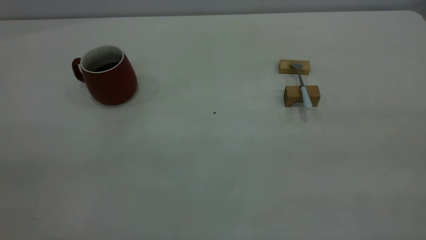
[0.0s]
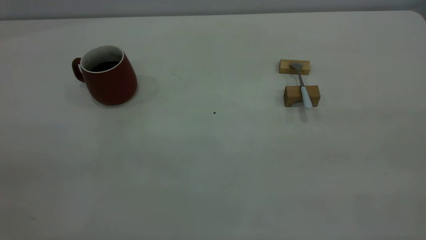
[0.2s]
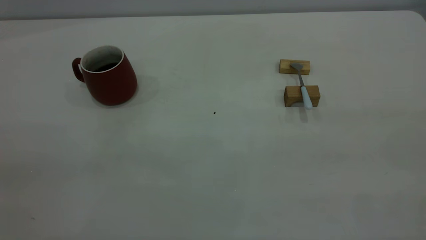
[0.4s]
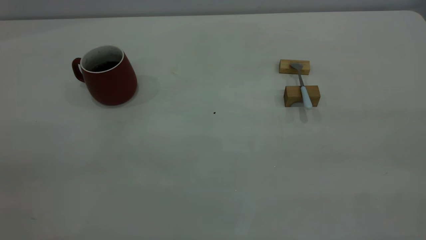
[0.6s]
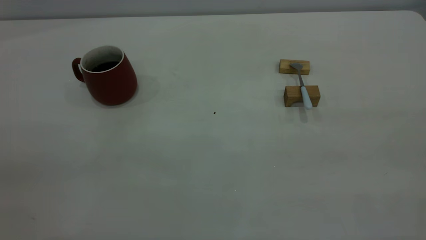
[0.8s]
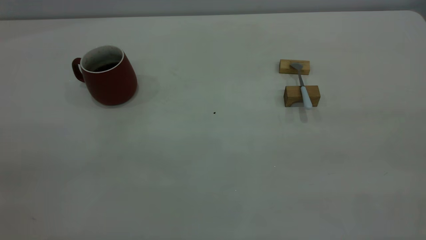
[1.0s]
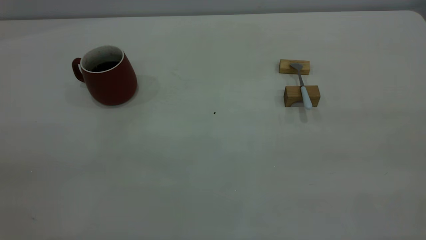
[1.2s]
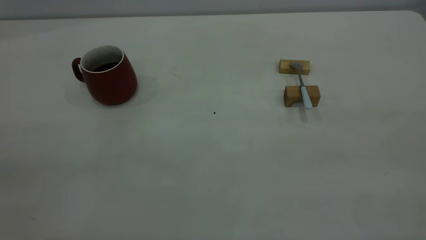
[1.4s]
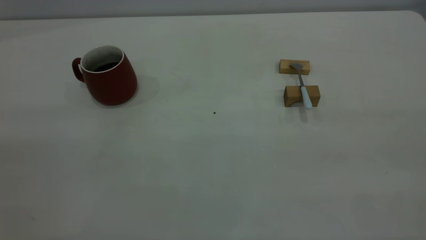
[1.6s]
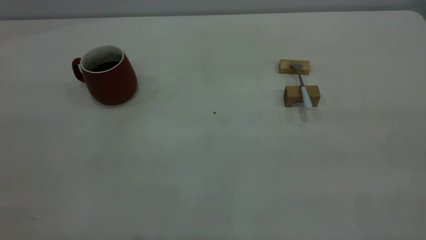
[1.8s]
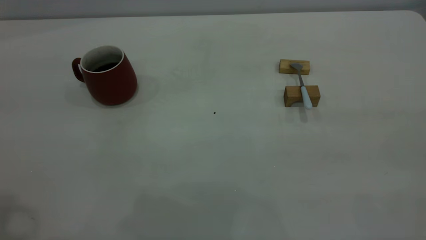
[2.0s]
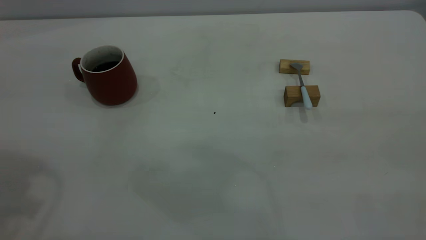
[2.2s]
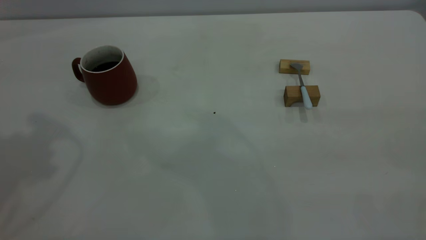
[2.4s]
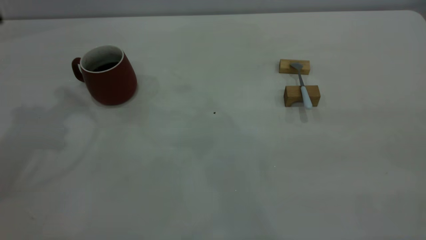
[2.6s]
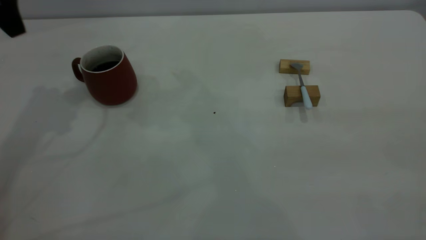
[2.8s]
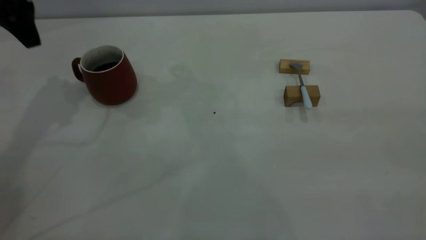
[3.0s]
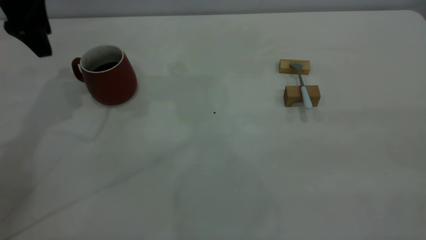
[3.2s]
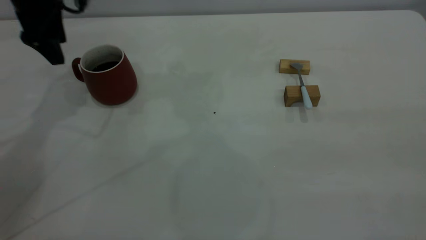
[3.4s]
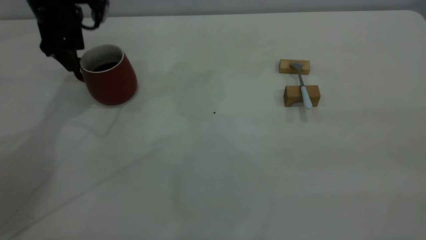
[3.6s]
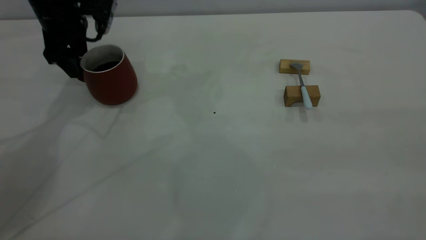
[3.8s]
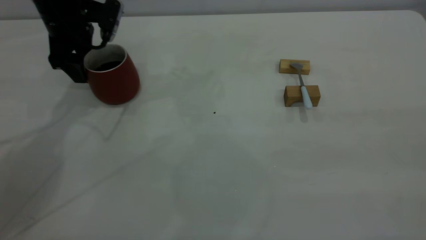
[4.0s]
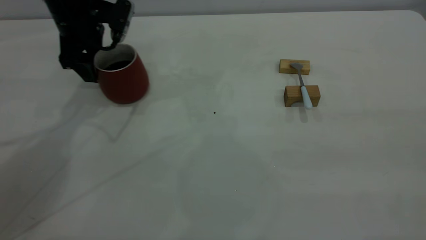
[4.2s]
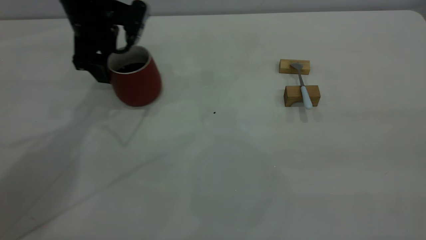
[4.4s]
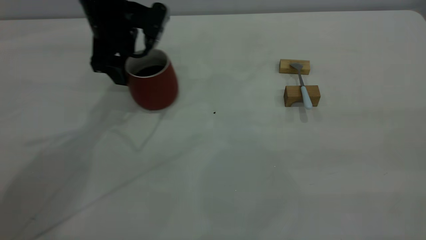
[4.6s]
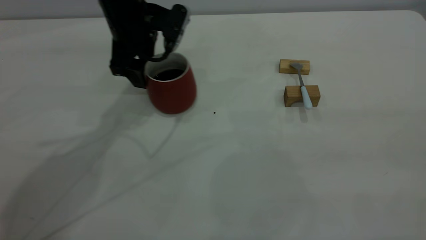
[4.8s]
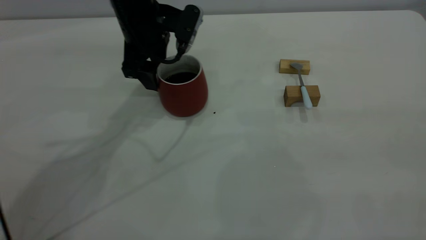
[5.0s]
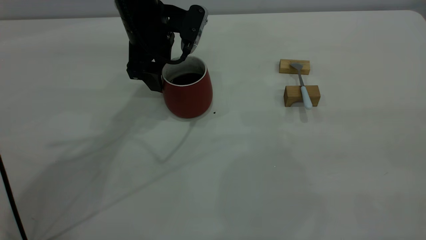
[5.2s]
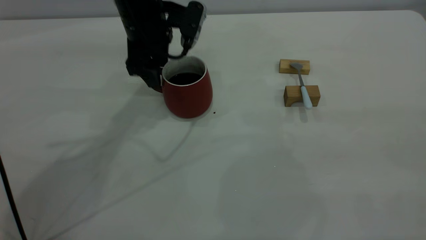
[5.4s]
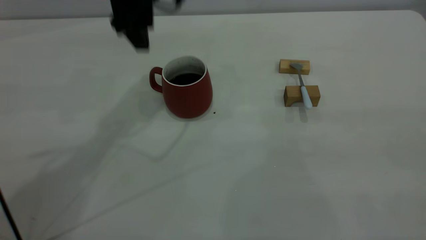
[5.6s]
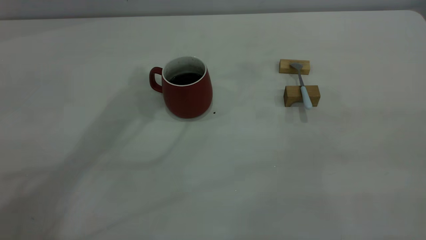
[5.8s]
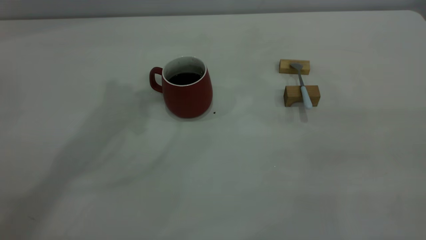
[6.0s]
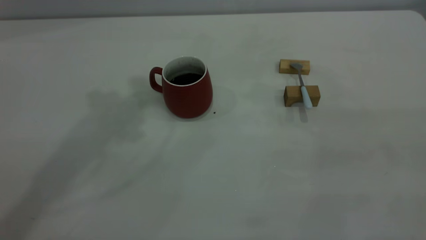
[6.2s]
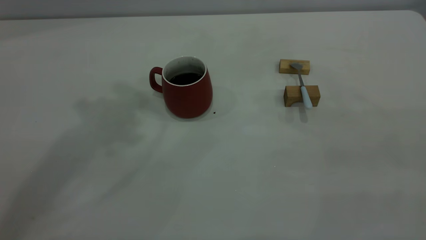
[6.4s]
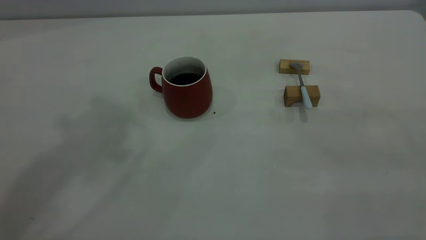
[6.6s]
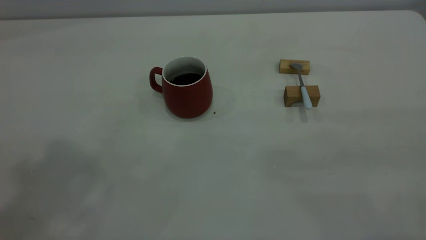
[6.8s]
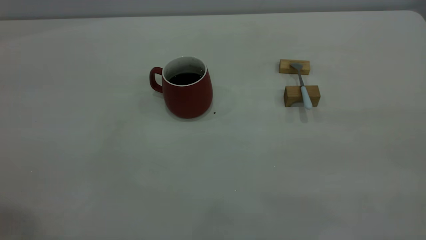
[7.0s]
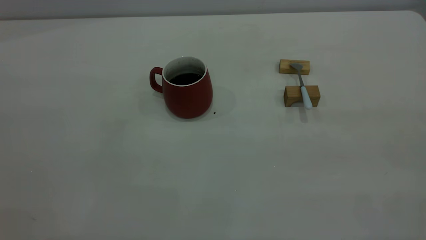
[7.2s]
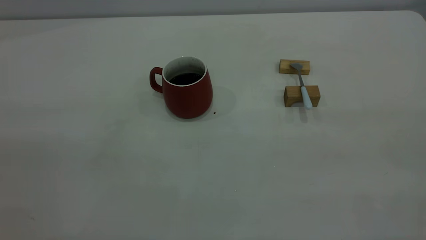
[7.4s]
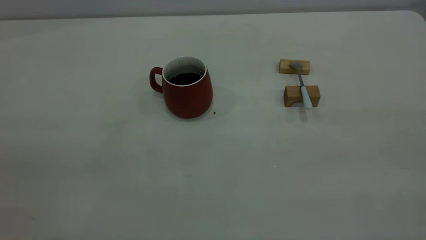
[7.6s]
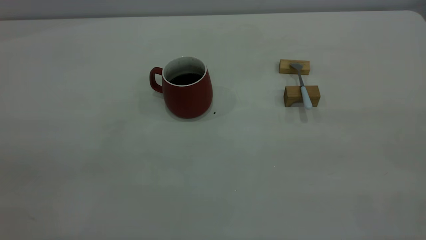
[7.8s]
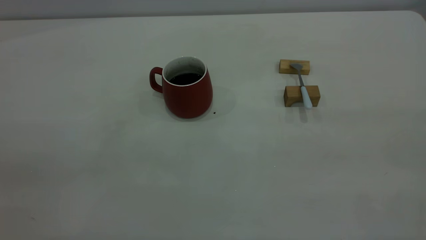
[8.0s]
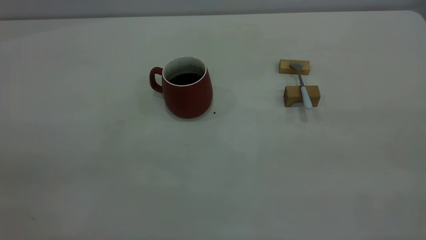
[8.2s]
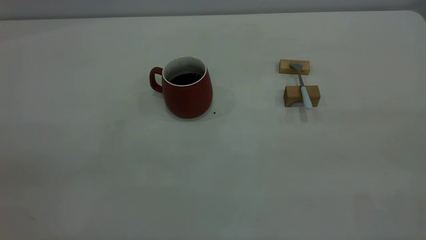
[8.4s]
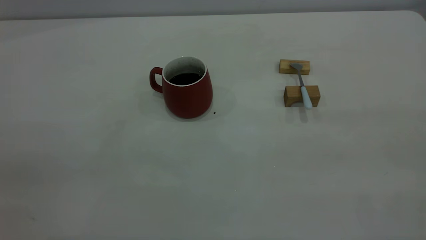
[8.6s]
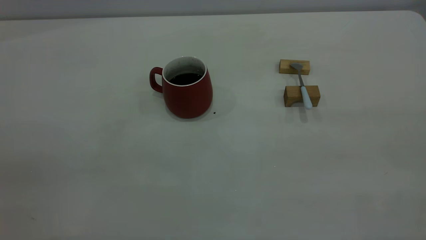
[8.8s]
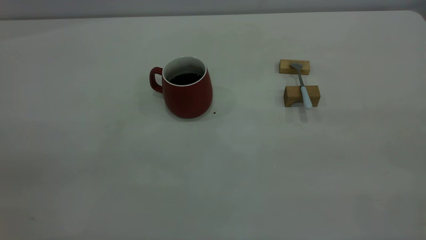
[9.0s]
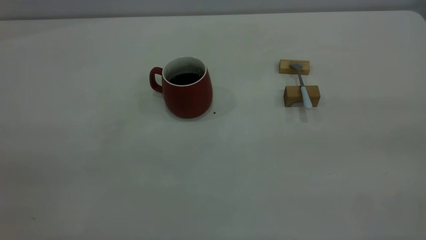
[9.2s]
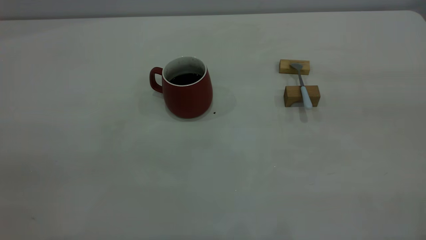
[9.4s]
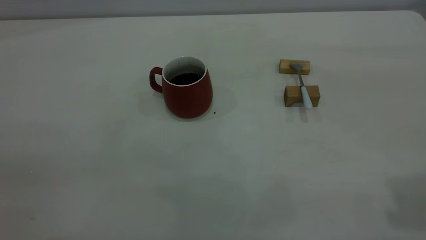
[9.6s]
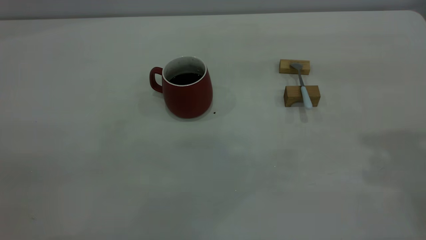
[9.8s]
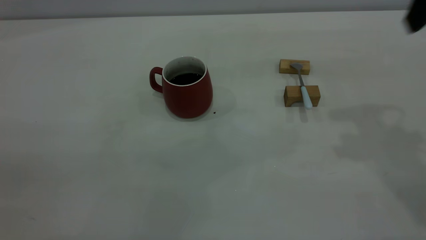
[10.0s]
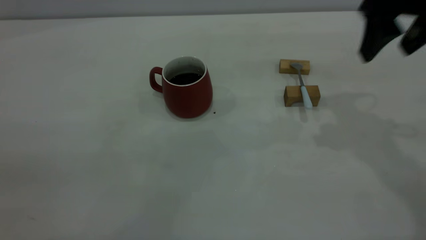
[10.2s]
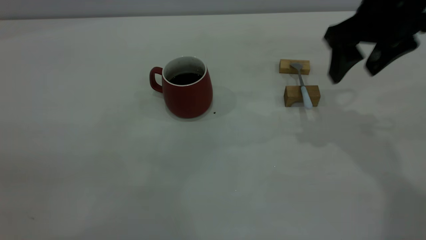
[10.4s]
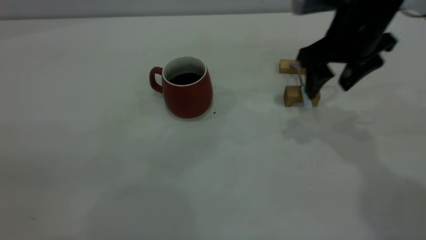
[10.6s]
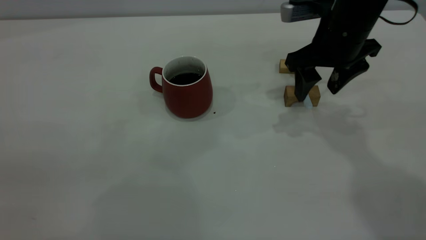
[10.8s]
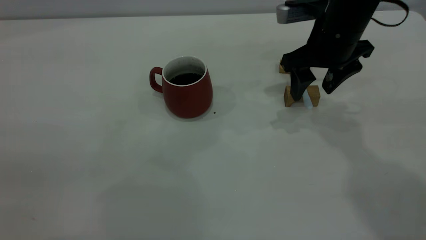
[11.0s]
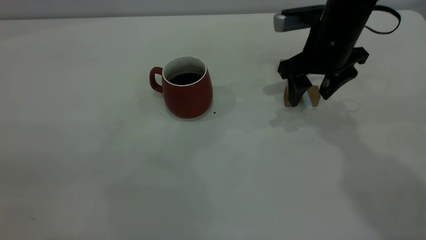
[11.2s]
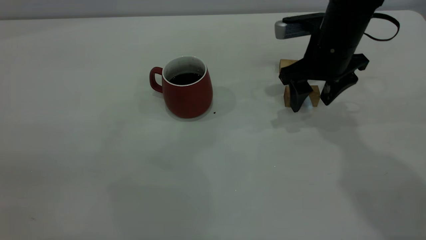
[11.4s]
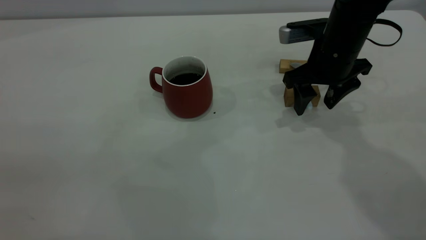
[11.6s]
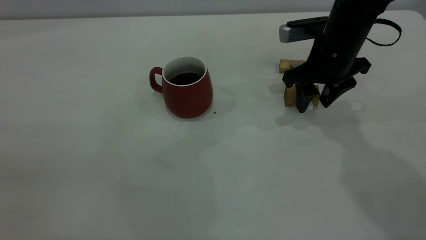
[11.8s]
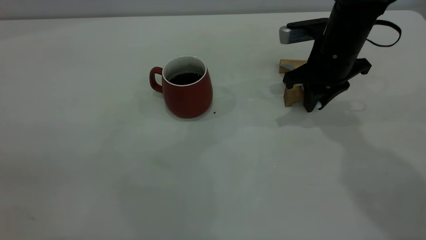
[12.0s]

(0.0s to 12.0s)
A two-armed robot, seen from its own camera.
Step, 0.0s - 5.4s: Move the cup with coffee to the center of view.
1.6s - 3.0s: The left gripper travels forward by approximately 40 cm, and opens.
3.0s - 4.4s: The left gripper shifts some 15 cm to the right and downward.
4.4s - 6.0s: The left gripper shifts about 25 cm upward.
7.6s - 9.0s: Both grippers stay put.
9.0s - 10.4s: The right gripper shifts about 40 cm forward and downward, and opens.
10.4s - 12.0s: The right gripper is displaced downward by some 10 cm, and closes its fingers.

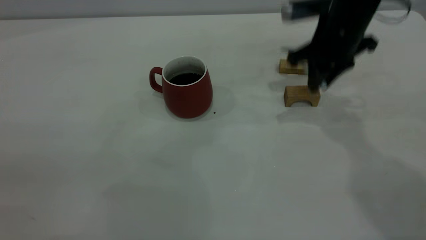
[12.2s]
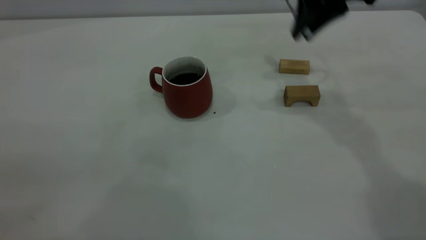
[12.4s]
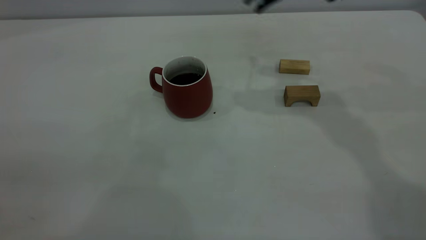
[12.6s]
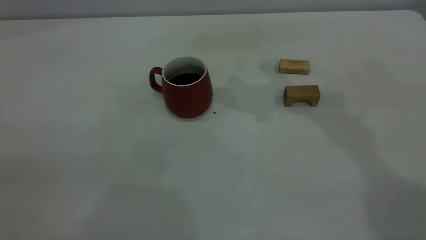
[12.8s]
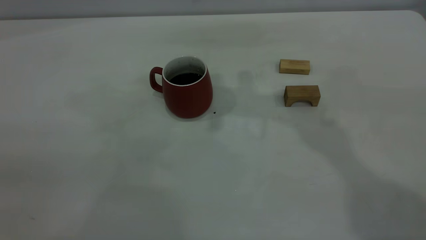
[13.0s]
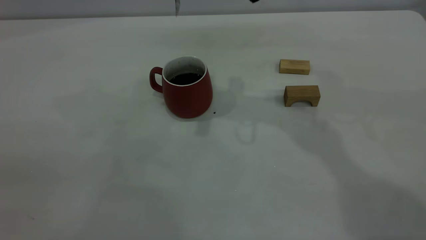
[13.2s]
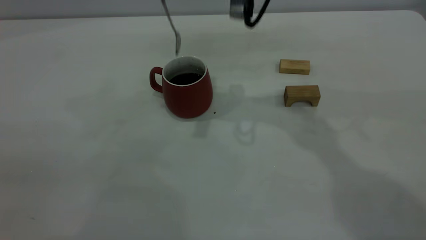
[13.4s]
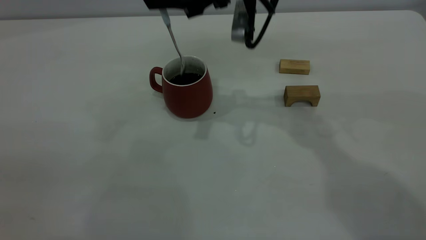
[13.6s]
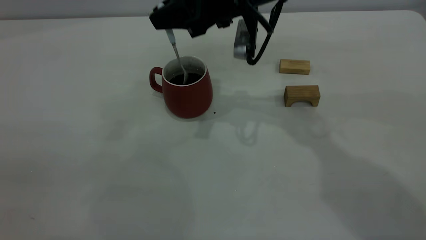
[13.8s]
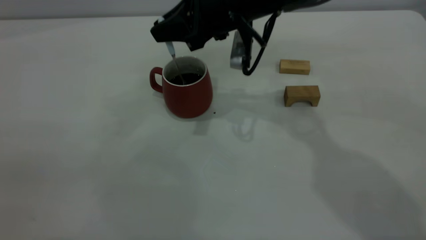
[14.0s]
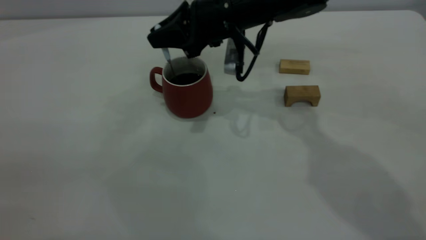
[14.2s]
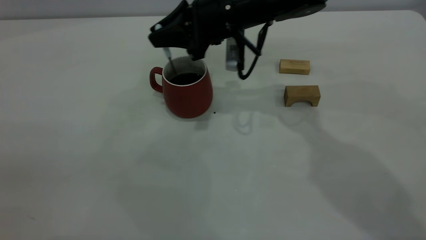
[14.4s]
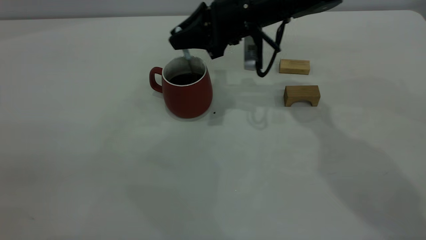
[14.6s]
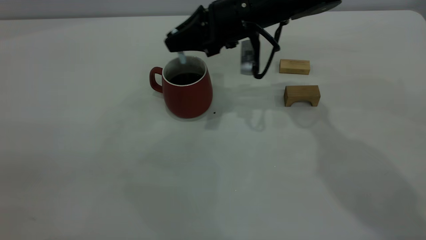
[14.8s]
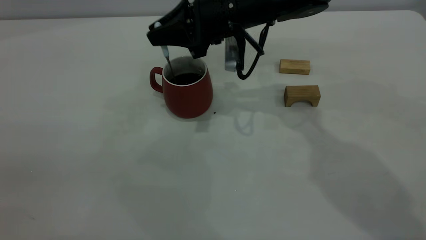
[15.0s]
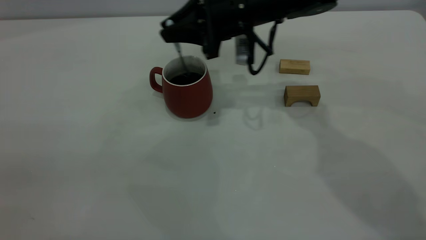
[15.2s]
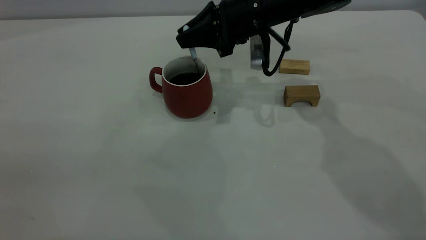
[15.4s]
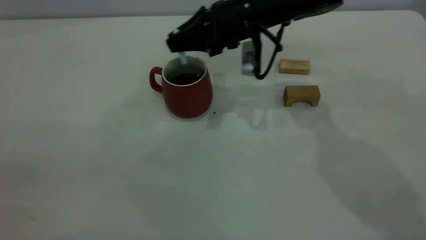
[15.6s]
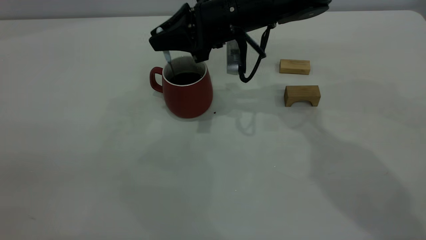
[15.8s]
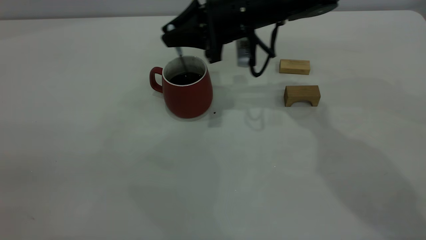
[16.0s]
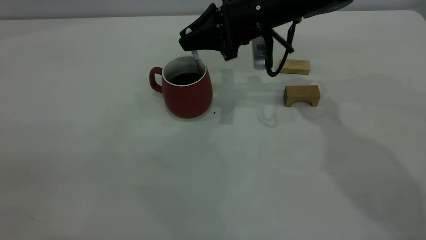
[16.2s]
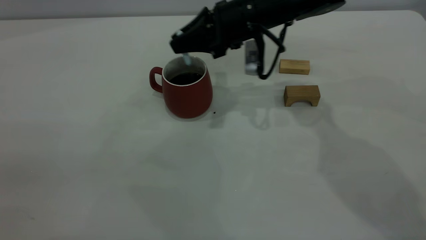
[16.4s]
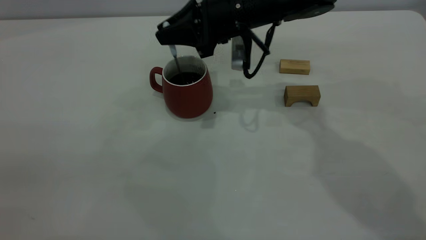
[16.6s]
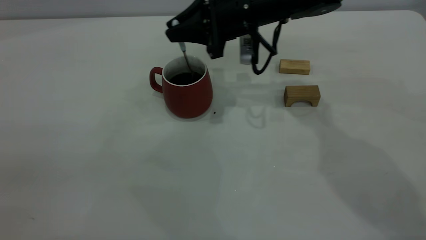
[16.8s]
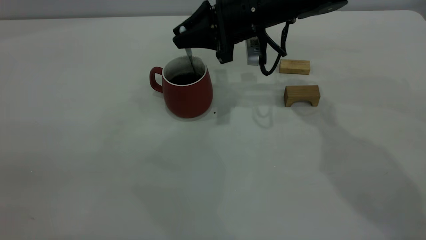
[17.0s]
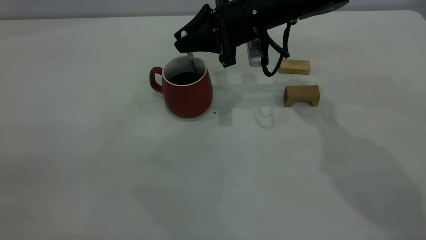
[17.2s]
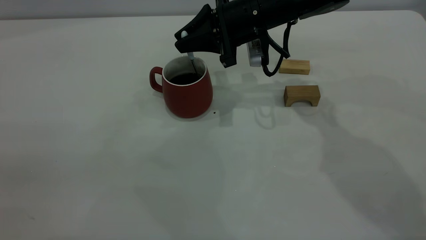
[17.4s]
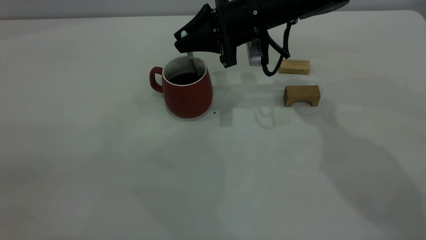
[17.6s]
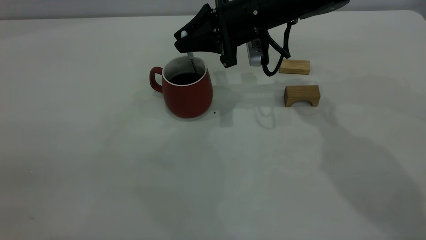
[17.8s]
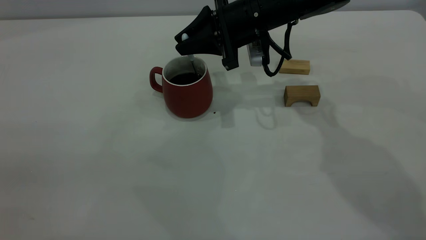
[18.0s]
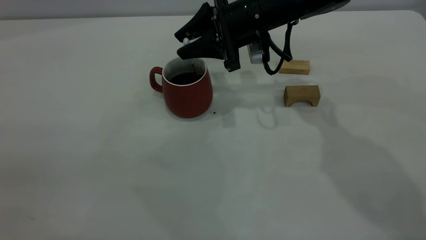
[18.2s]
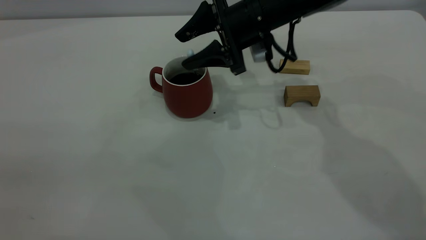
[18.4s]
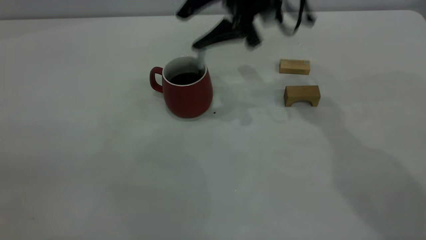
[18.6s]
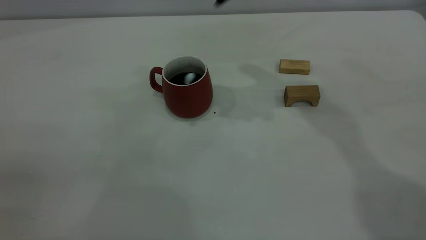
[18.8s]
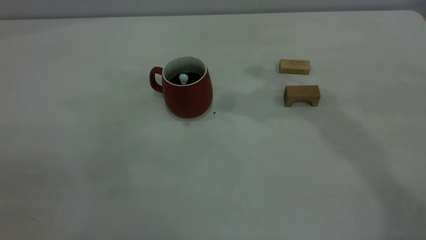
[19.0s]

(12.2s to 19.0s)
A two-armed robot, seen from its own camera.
Step, 12.4s - 18.6s: Stir the coffee in the cup.
12.2s - 13.6s: The right gripper heads to the left, covering about 15 cm.
13.6s - 15.0s: The right gripper moves downward, about 5 cm.
15.0s - 17.6s: The grippers move only a little.
17.6s - 19.0s: The right gripper heads upward, covering roughly 25 cm, and opens.
